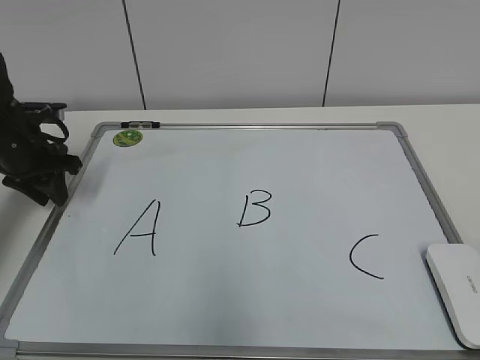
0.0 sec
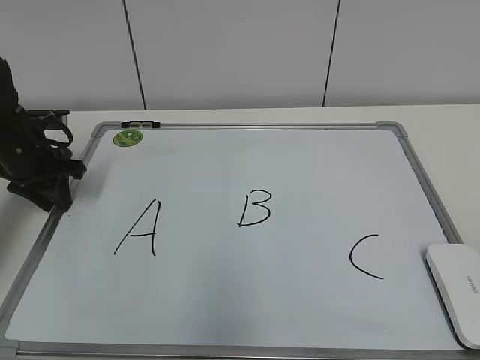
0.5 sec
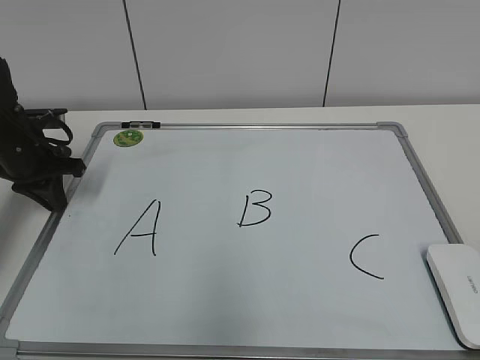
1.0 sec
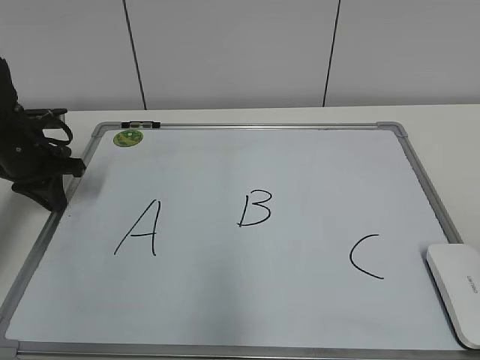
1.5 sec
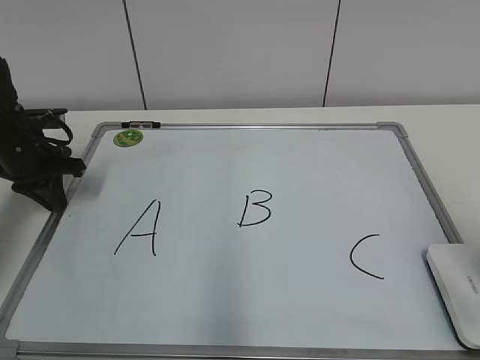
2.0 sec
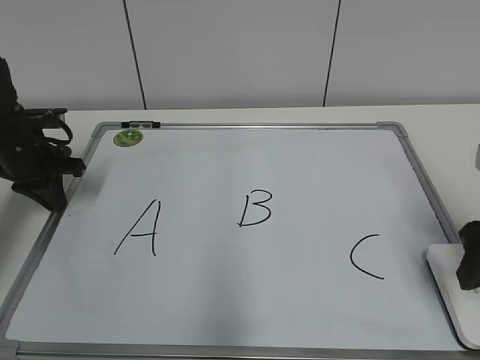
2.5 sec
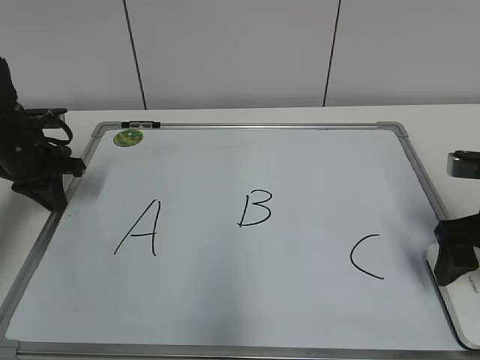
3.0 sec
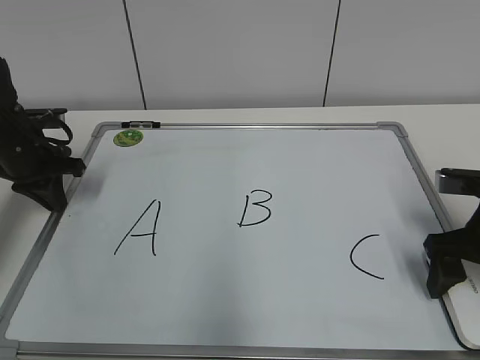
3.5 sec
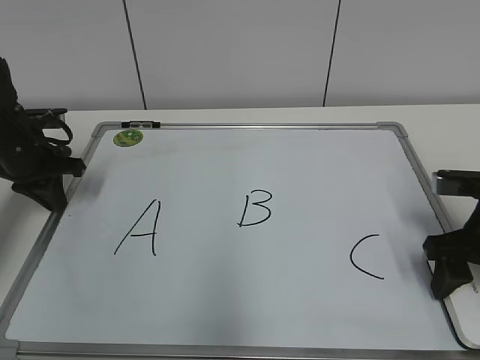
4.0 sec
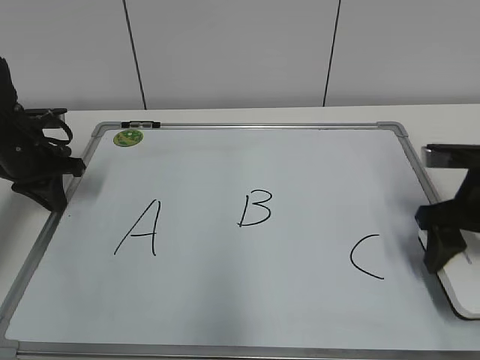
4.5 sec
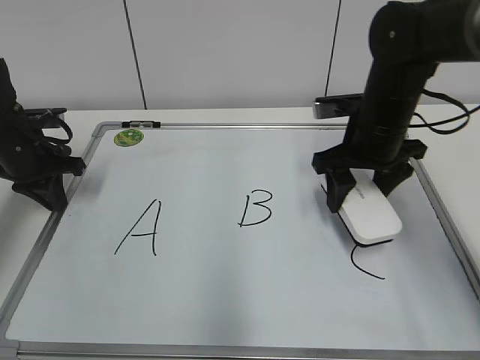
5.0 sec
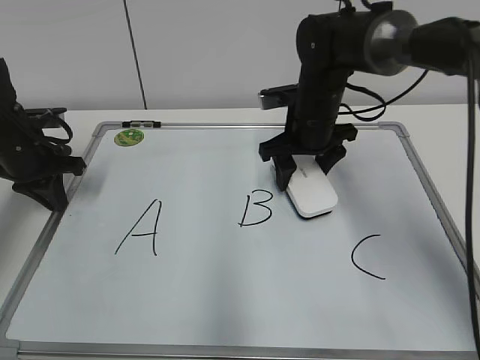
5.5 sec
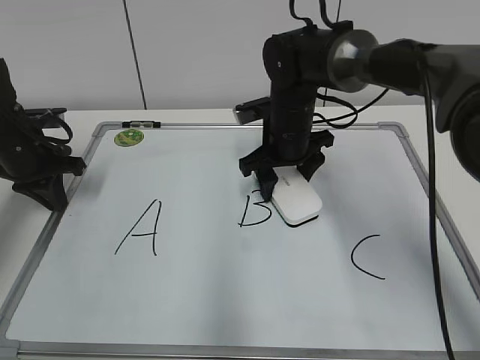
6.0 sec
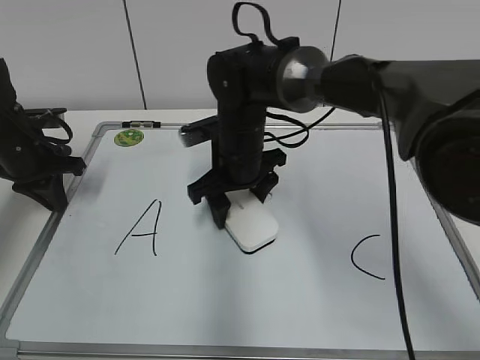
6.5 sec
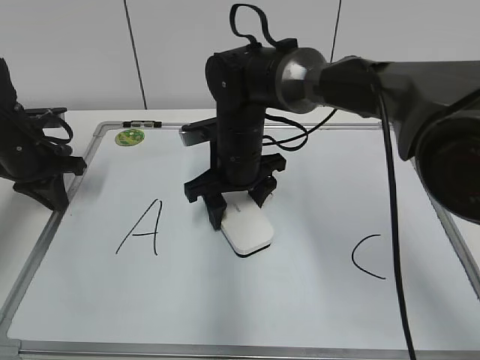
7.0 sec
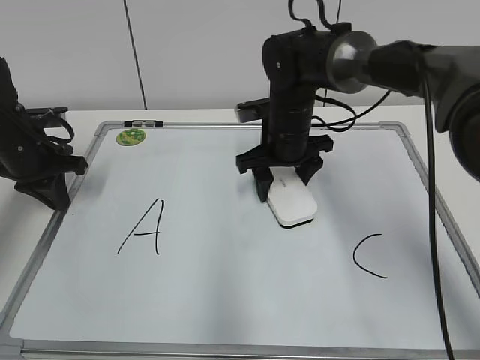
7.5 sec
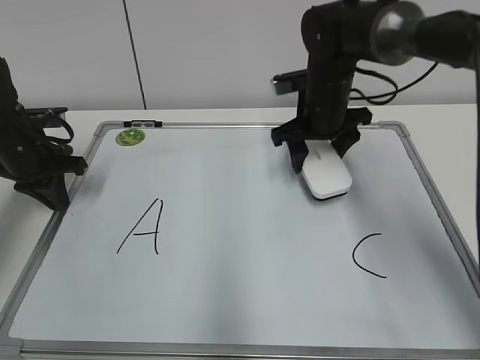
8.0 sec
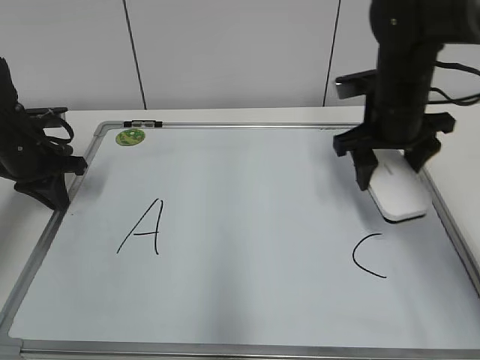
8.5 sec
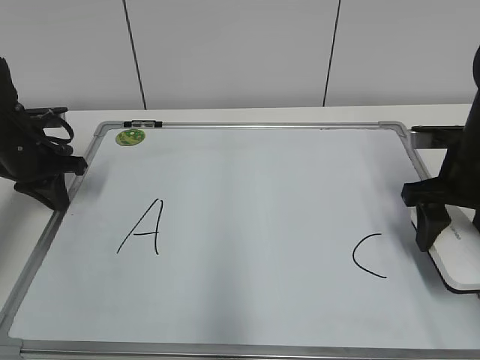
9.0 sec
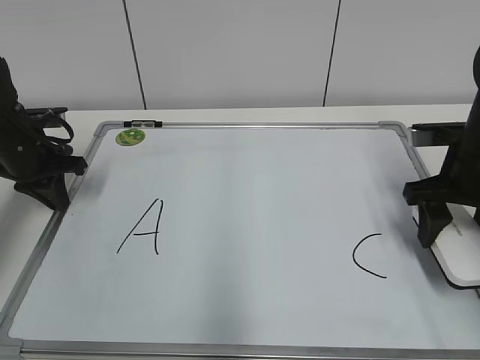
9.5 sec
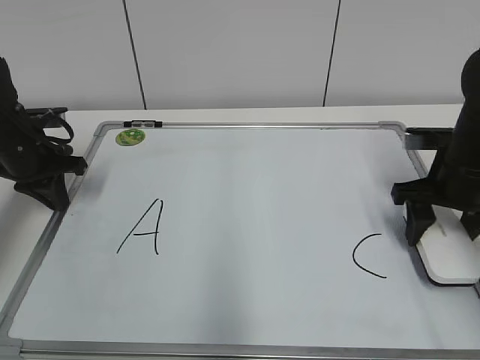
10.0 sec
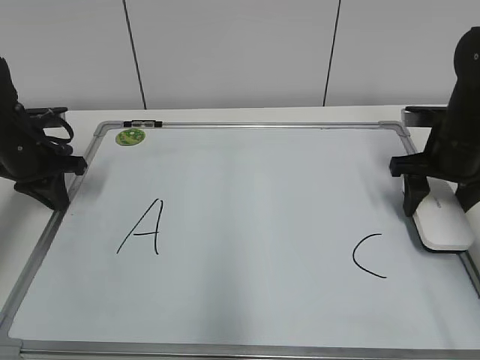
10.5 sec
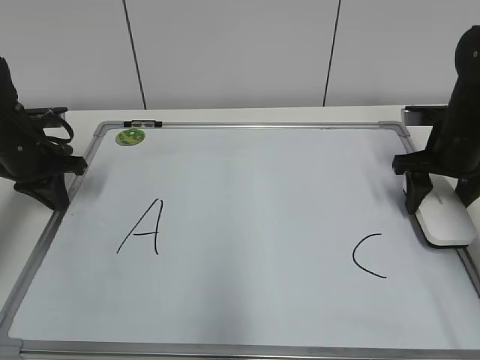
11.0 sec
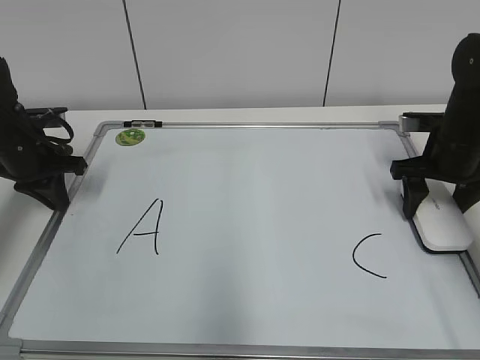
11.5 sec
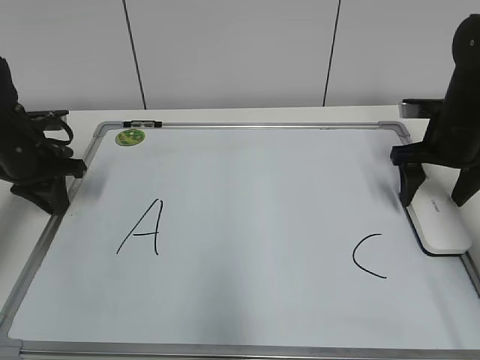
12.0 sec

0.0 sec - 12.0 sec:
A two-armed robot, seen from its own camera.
Task of the whole recording: pick up the eraser on the blackboard and erase the letter "B".
Step, 1.0 sec - 4.0 sec: Grab the eraser with your right hand.
Step, 4.5 sec - 7.5 sec: Erase the letter B with your right hand.
Step, 8.0 sec - 11.5 sec: Put down the eraser with your right hand.
0.0 sec - 2.0 sec: The left gripper closes its fingers; the right gripper travels forward by some 15 cm.
2.0 sec - 4.0 sec: The right gripper heads forward and downward, covering approximately 20 cm, and closes.
4.0 sec - 6.0 sec: The right gripper is displaced to the left and forward by roughly 25 cm.
6.0 sec - 8.0 sec: The right gripper shifts by approximately 5 cm.
8.0 sec - 10.0 sec: The right gripper goes some 20 cm to the right and backward.
10.0 sec - 12.0 sec: The right gripper is displaced forward by some 5 cm, and opens its fingers.

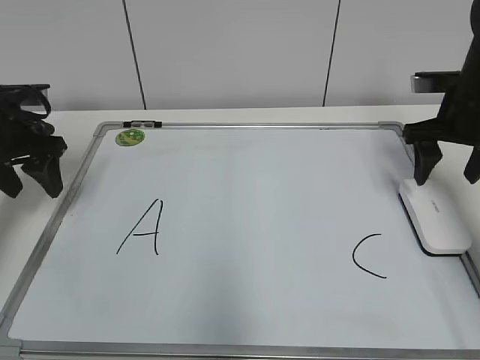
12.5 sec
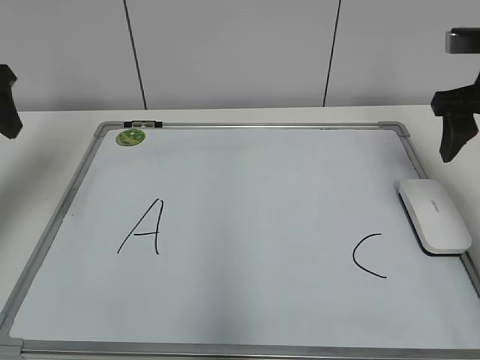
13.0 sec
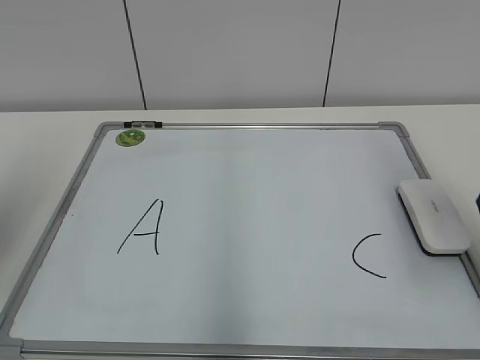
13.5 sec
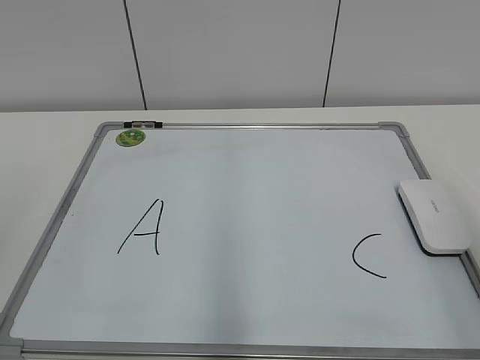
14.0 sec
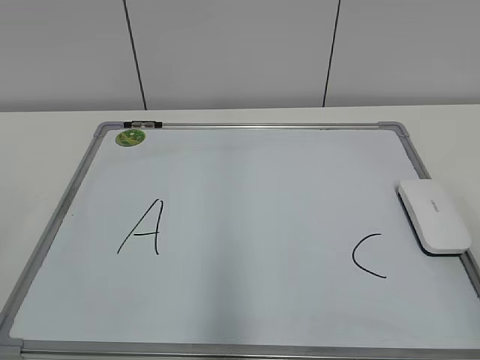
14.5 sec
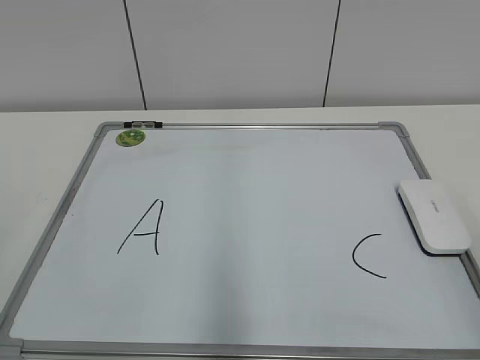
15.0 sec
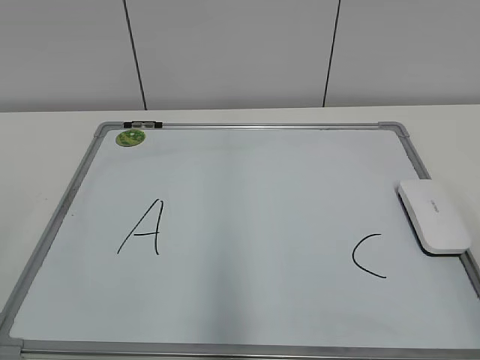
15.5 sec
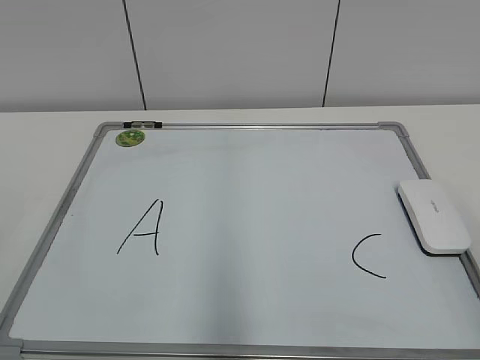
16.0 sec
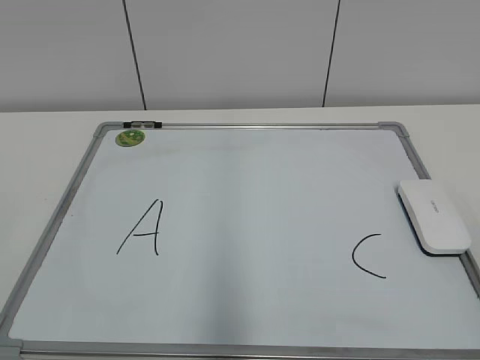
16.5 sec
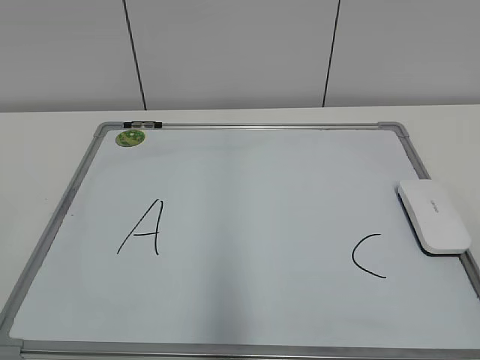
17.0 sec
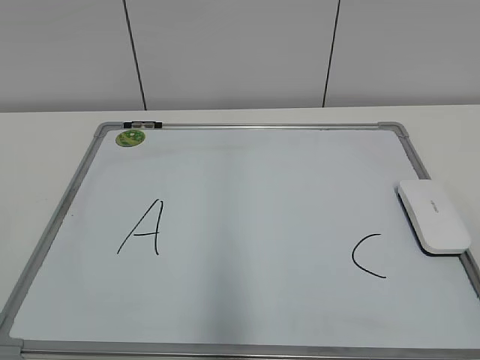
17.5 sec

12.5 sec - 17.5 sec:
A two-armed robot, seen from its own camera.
Task of the whole recording: pick up the eraser on the blackboard and erase the letter "B".
12.5 sec - 15.0 sec: Both grippers travel together backward, about 35 cm.

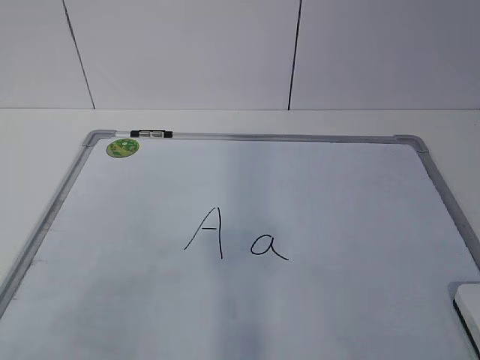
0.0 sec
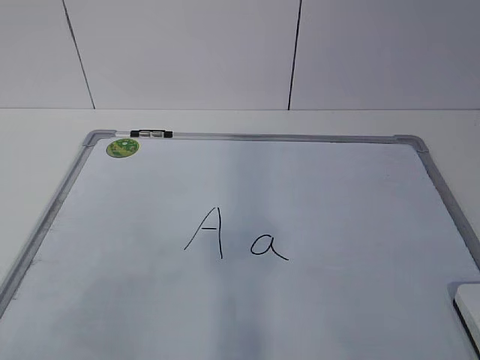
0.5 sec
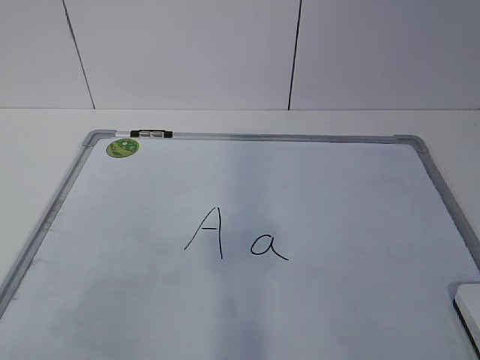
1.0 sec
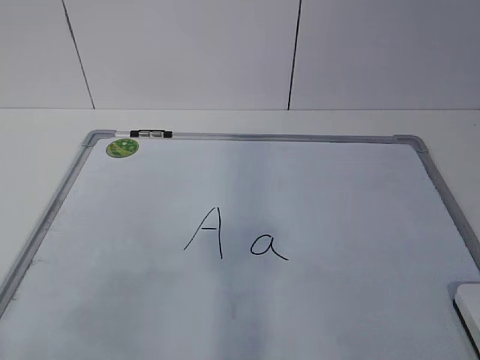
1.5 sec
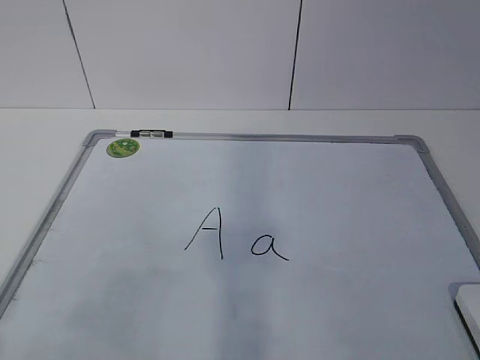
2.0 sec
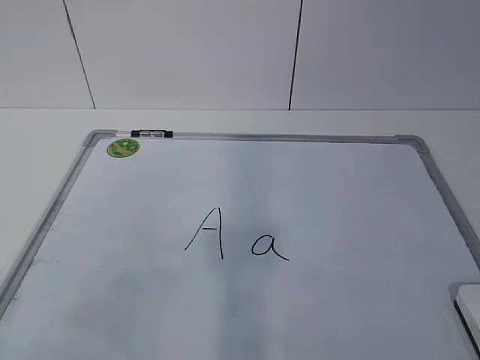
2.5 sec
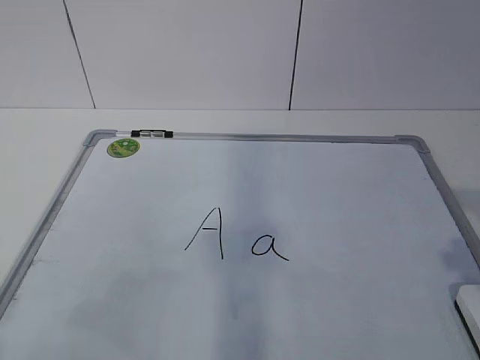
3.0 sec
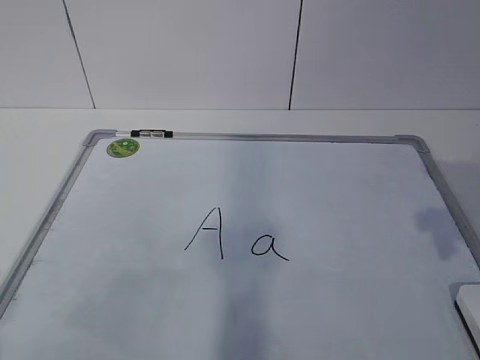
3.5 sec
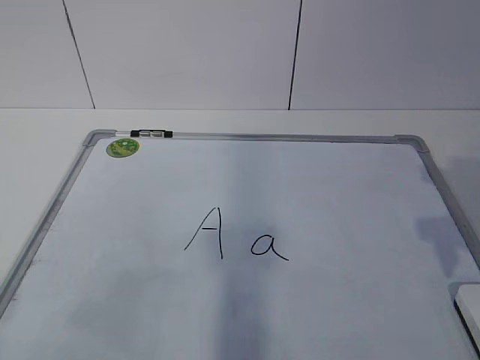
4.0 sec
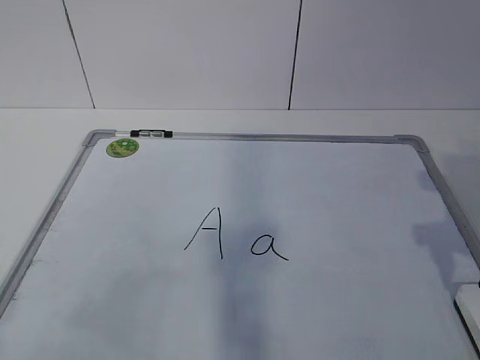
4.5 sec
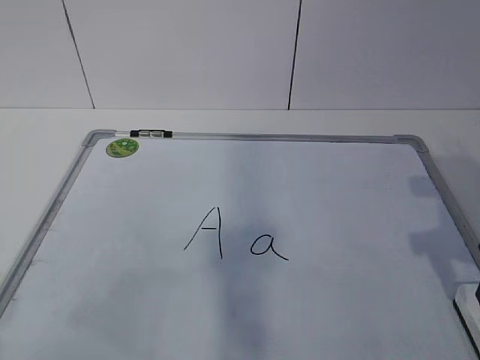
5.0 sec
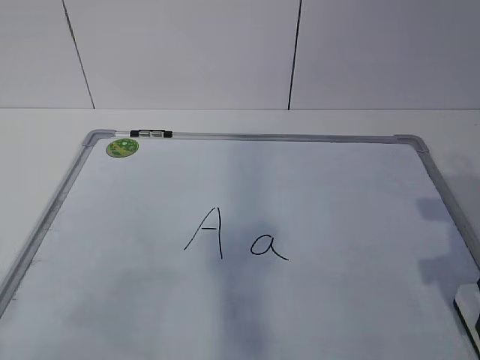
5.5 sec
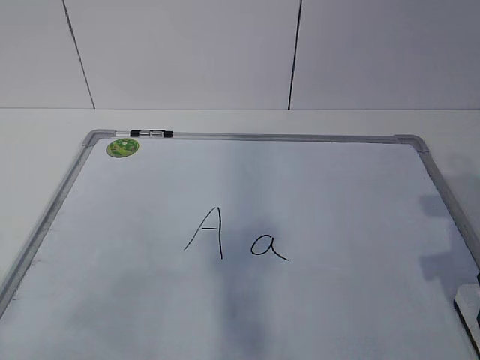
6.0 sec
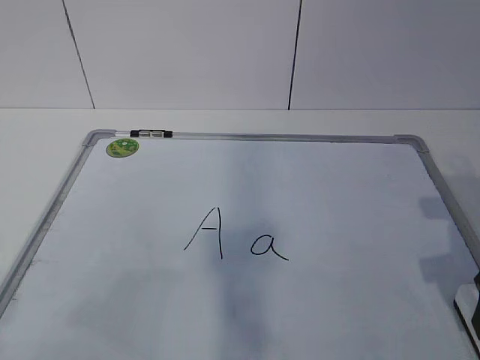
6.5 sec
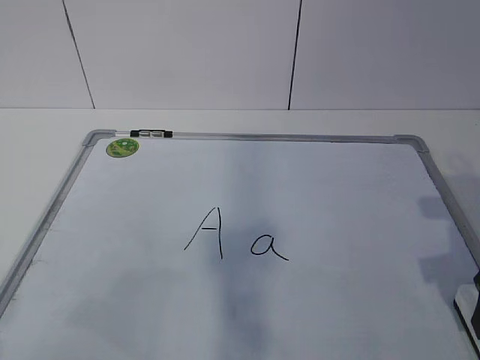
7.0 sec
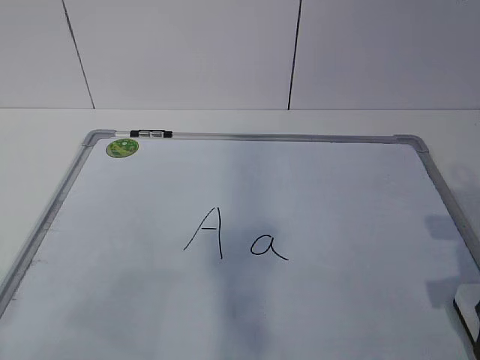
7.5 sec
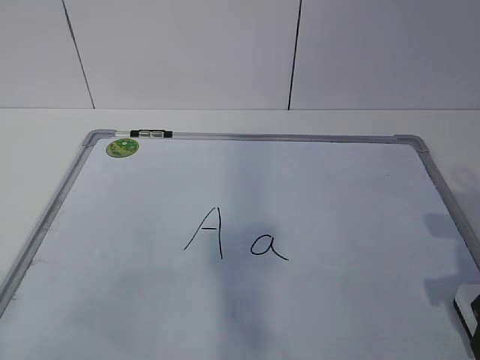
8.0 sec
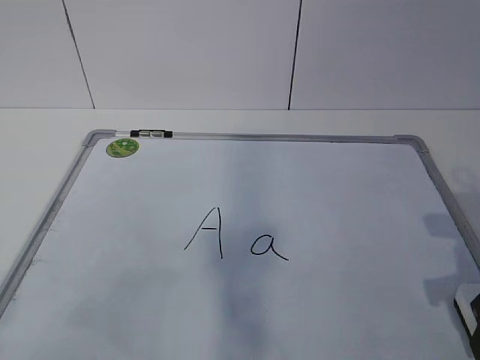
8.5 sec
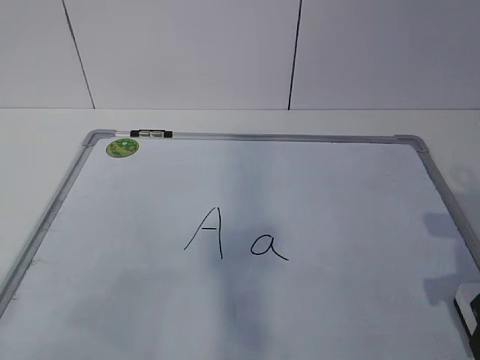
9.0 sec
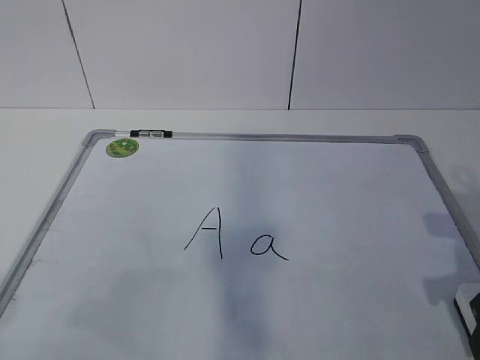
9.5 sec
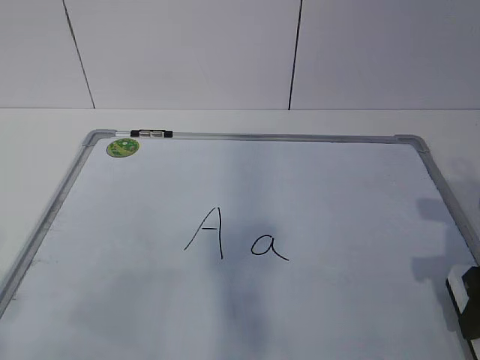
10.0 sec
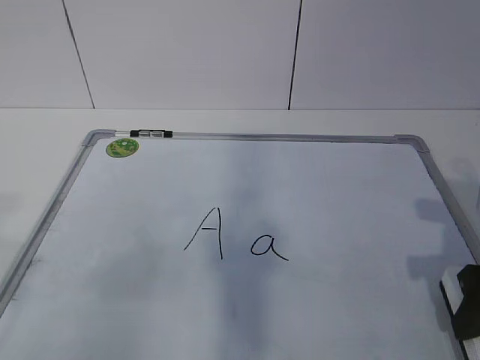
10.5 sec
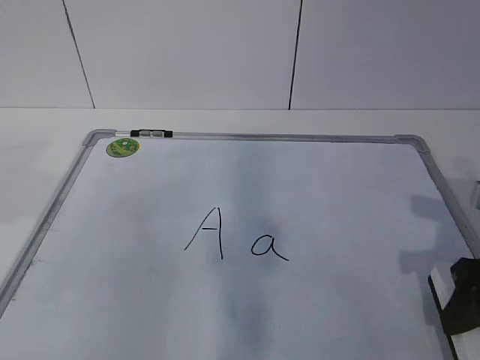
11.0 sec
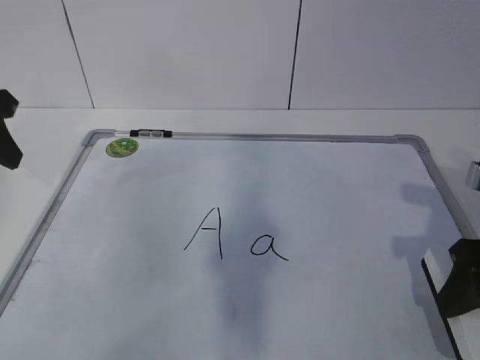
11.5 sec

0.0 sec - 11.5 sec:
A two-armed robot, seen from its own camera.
Task of the whole recording: pick up the eraser on the blackboard and erase the letter "a".
2.0 sec - 4.0 sec: The right gripper travels forward by about 20 cm.
4.0 sec - 6.0 sec: The right gripper heads downward, covering some 5 cm.
6.0 sec - 7.5 sec: The right gripper opens.
9.5 sec - 11.5 sec: The left gripper goes about 30 cm forward.
